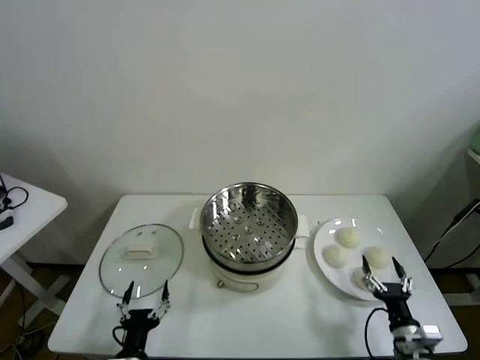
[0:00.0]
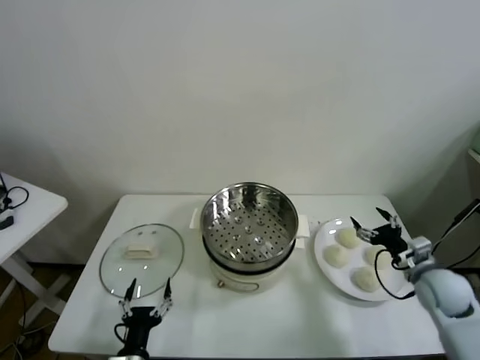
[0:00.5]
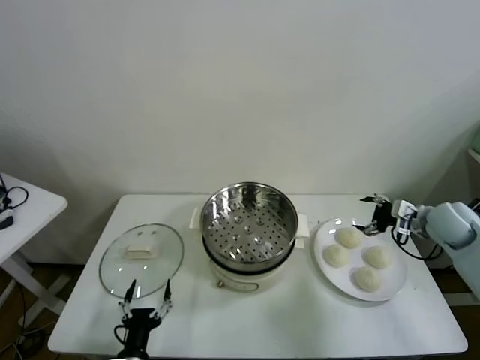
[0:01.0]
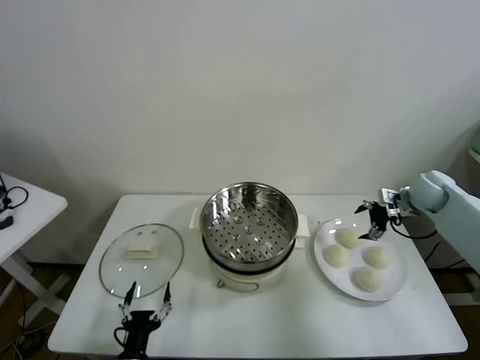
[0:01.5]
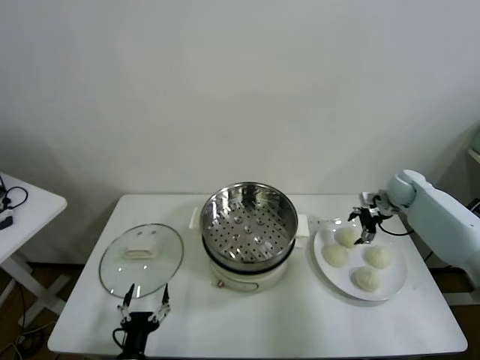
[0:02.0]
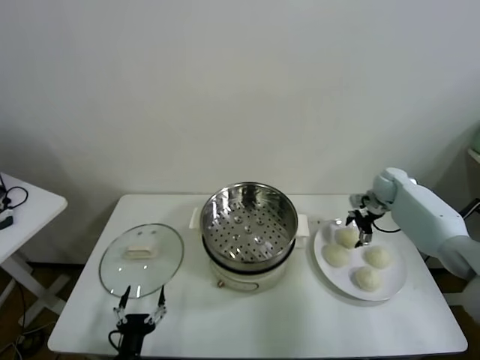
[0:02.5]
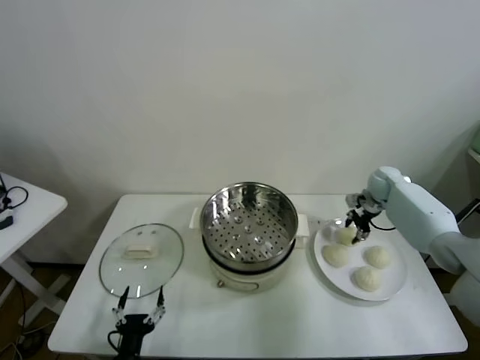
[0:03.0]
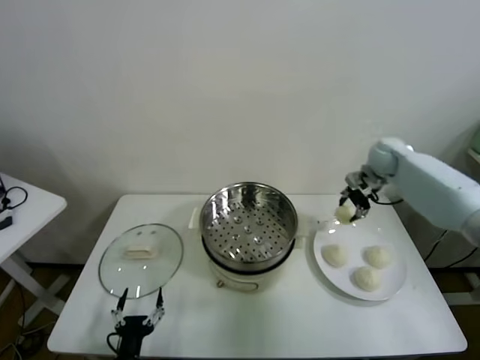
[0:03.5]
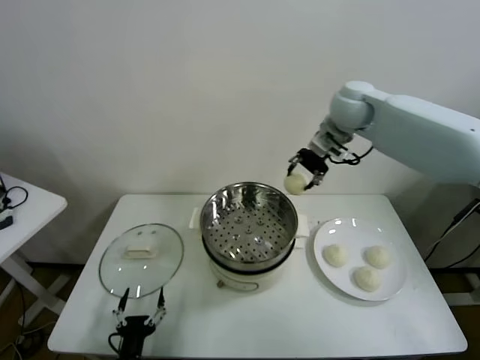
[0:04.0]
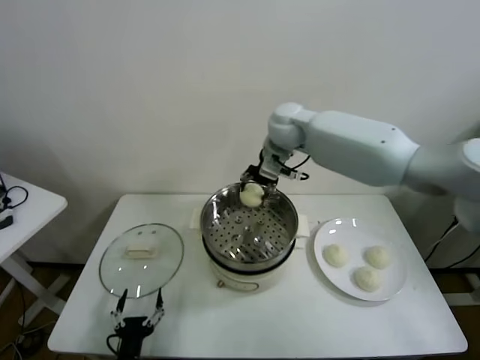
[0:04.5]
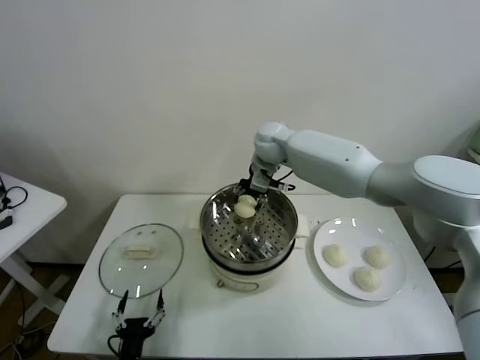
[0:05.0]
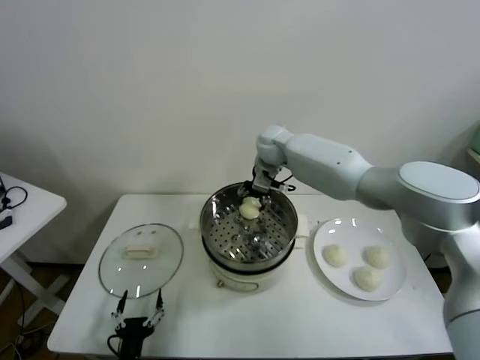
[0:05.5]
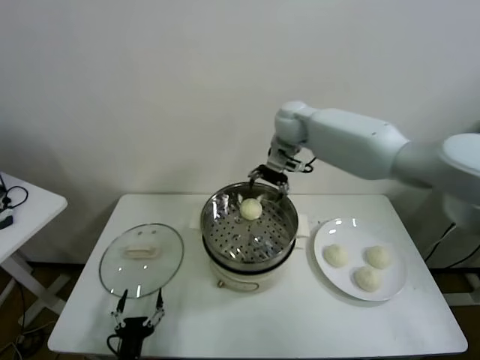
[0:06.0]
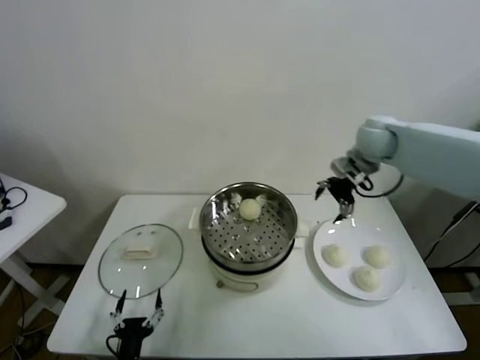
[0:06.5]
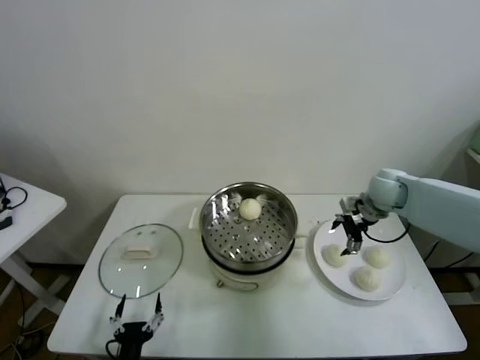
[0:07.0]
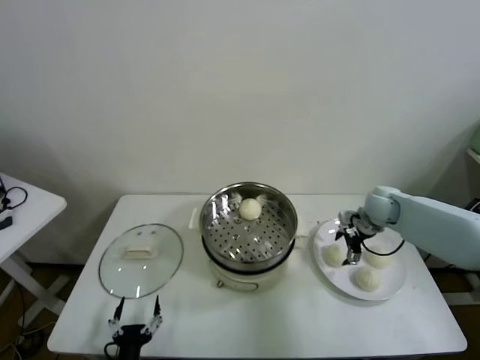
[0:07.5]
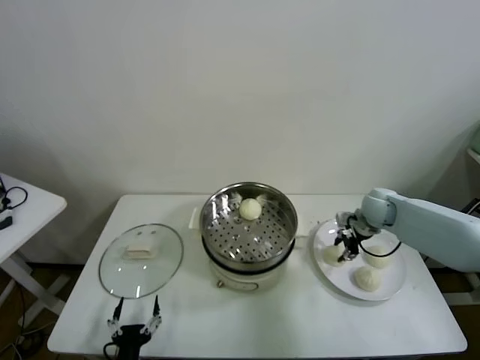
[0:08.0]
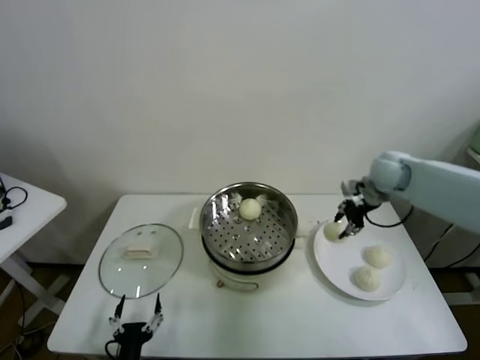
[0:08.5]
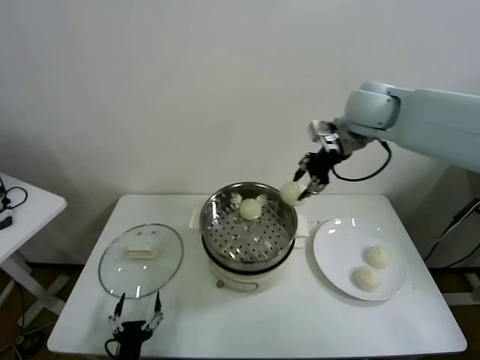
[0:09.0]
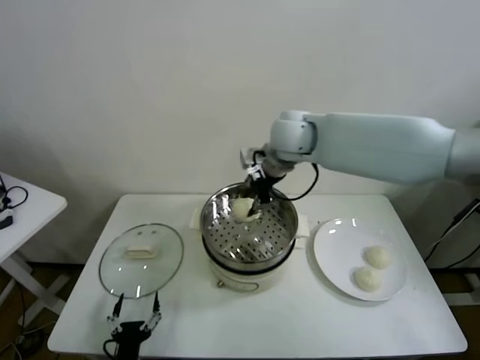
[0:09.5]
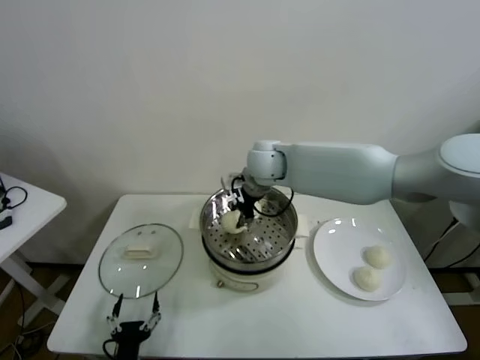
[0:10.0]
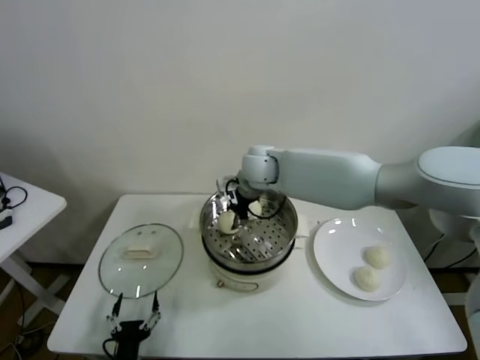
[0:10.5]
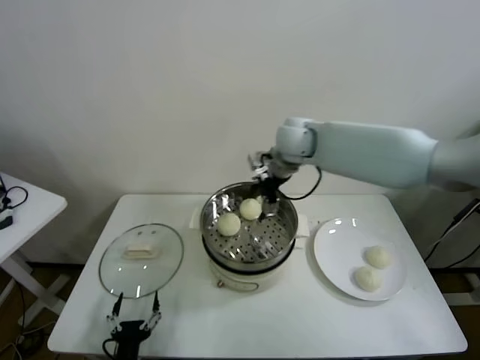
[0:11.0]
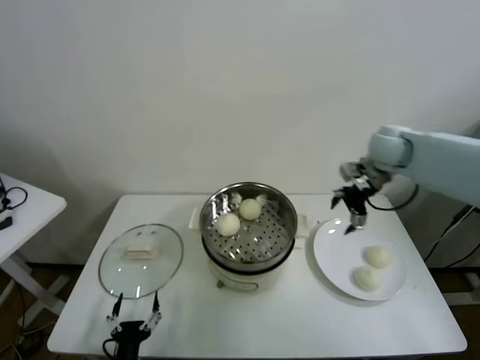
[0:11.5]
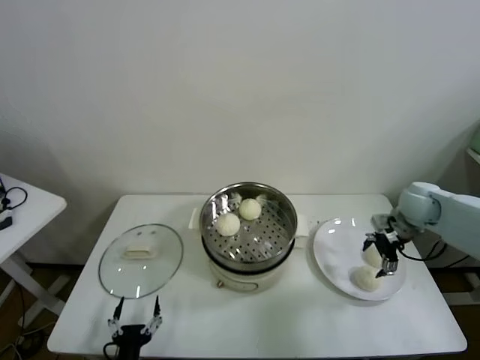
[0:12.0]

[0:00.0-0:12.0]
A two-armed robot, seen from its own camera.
Task of the whole recording: take steamed baozi put them in steamer.
Step, 0.0 to 2.5 s: Grasp the baozi in the plate with right gripper.
Step, 3.0 to 5.5 s: Place the baozi on the steamer with right gripper.
Step, 6.0 to 7.5 s: Grasp the baozi in the plate with right gripper.
Step, 8.0 to 10.5 s: Place the baozi on the steamer with right gripper.
2.0 to 4.0 s: The right gripper is displaced upward and to the left by roughly 35 cm, and closes up.
4.0 to 6.0 s: The right gripper opens its fingers.
6.0 to 8.0 s: The right gripper moves downward, to the right and backward, approximately 30 cm, and closes.
8.0 to 10.0 s: The right gripper goes some 35 cm to the left and upward.
10.0 to 12.0 s: The right gripper shifts about 35 cm to the right, and opens.

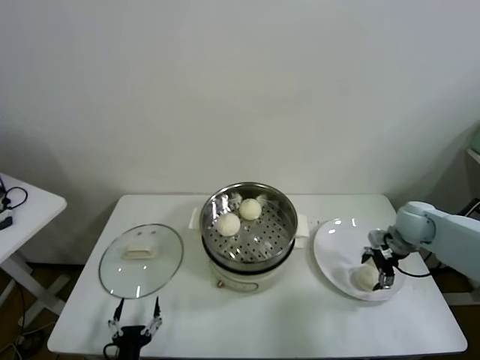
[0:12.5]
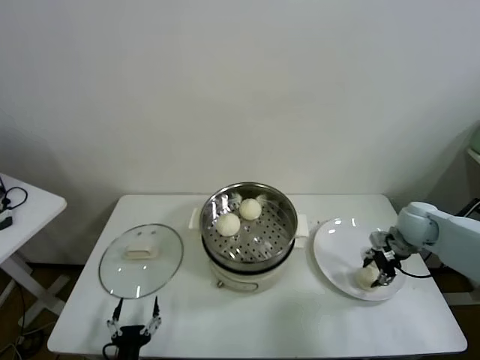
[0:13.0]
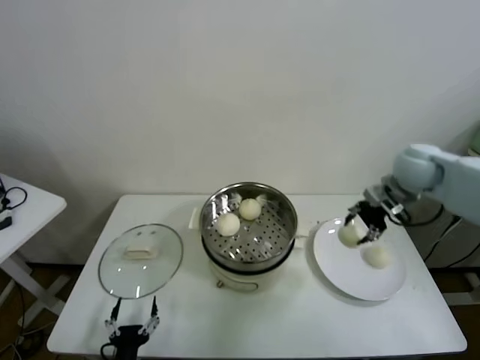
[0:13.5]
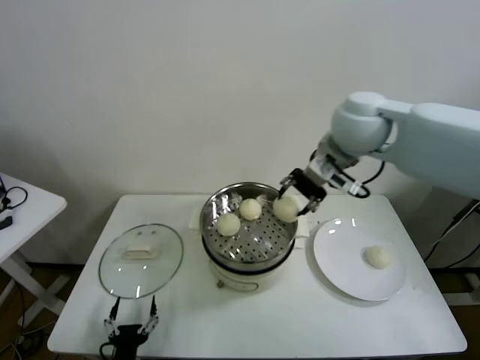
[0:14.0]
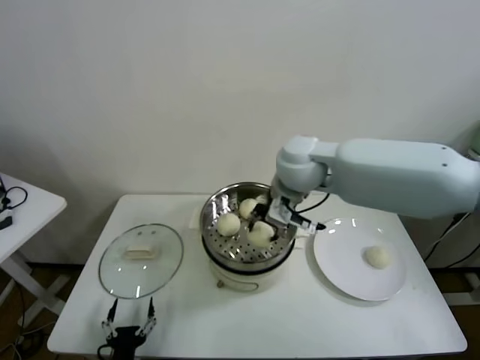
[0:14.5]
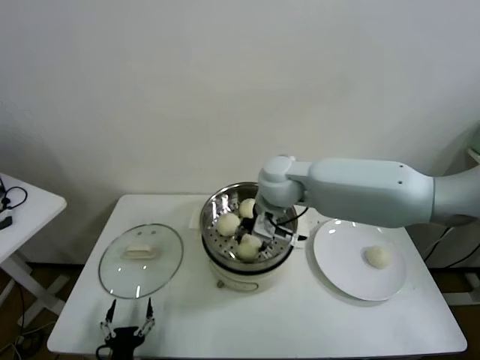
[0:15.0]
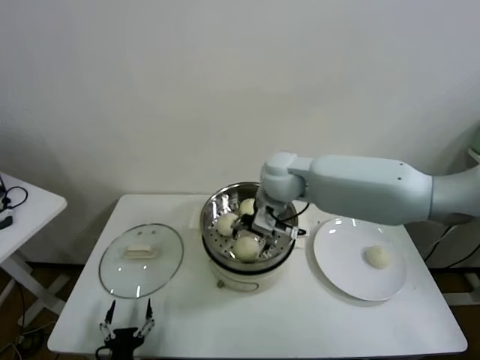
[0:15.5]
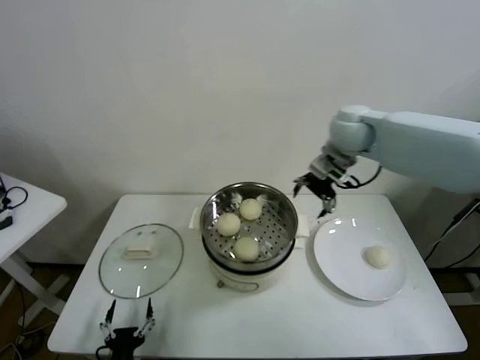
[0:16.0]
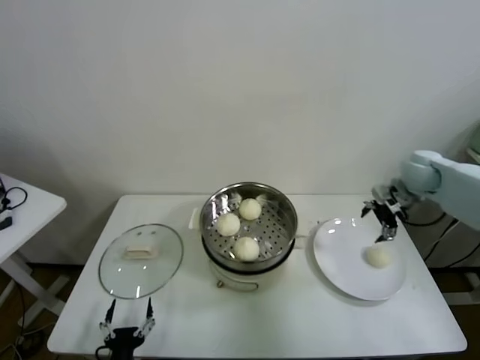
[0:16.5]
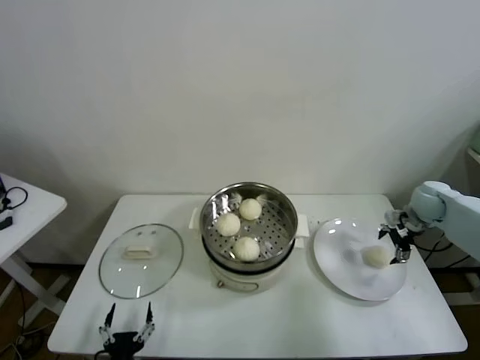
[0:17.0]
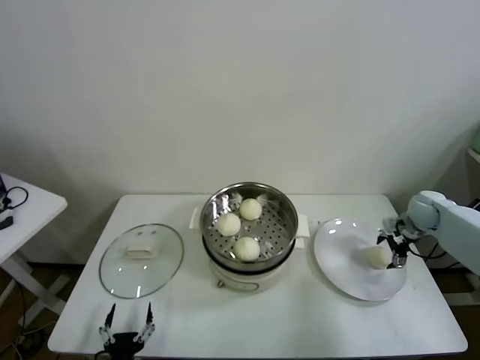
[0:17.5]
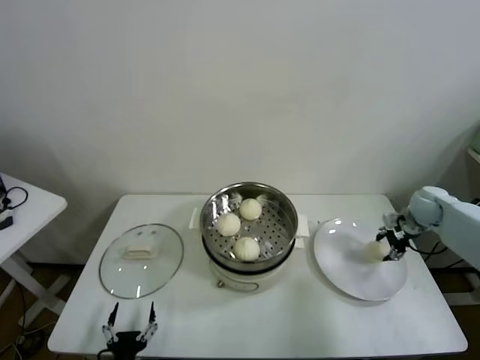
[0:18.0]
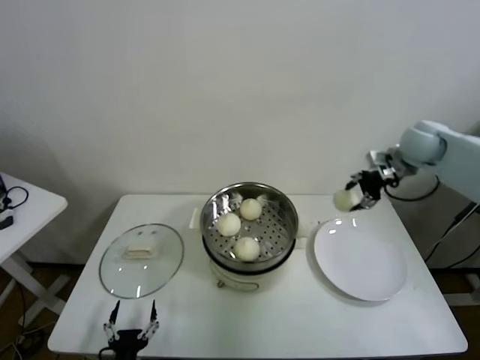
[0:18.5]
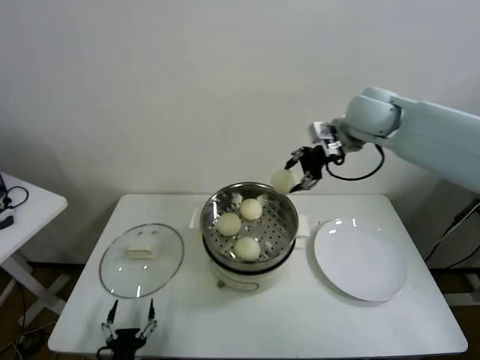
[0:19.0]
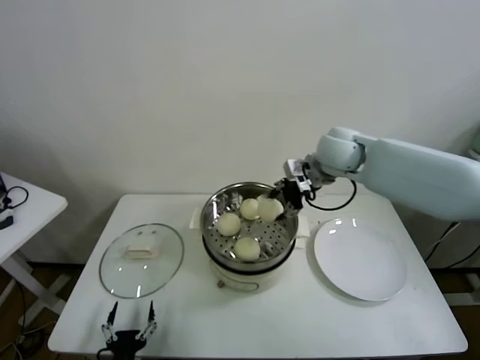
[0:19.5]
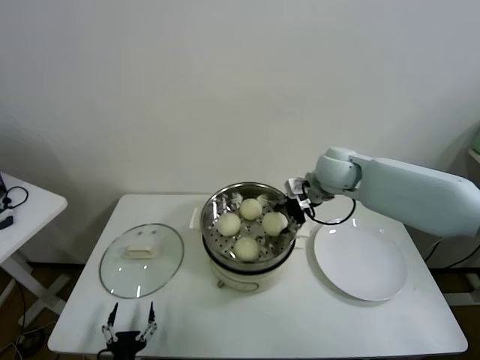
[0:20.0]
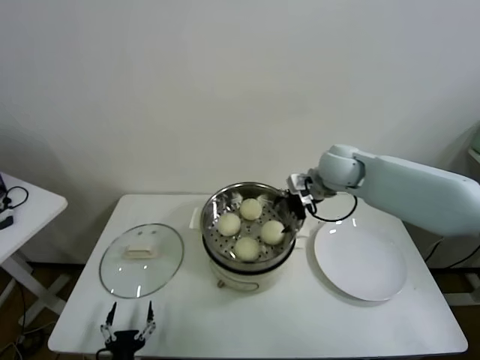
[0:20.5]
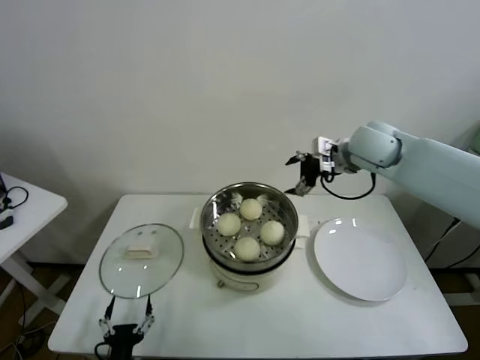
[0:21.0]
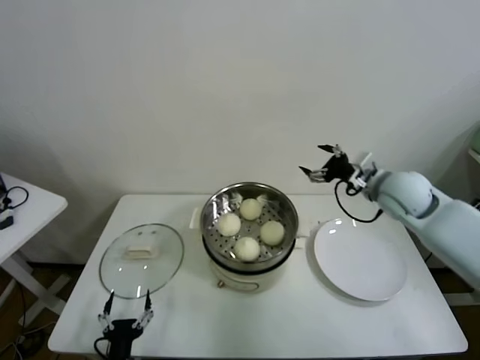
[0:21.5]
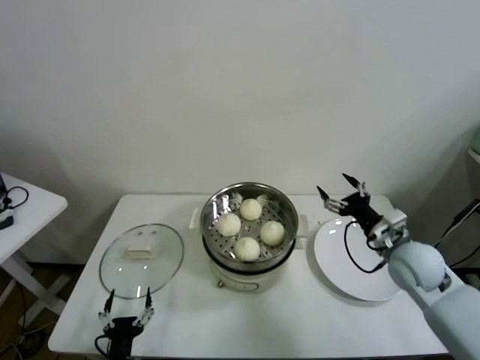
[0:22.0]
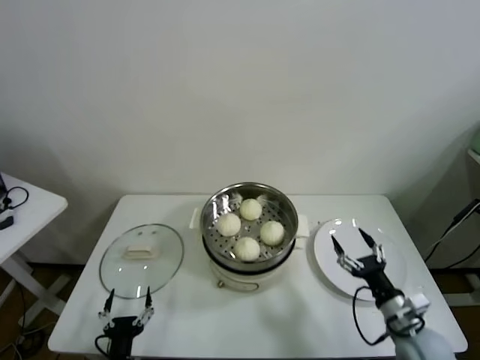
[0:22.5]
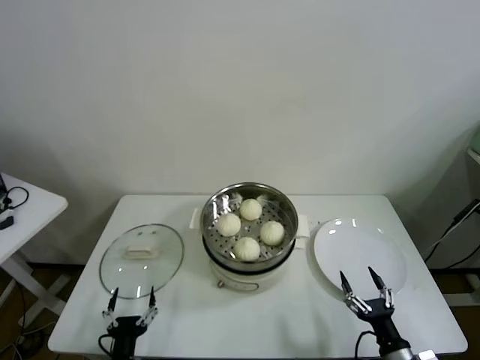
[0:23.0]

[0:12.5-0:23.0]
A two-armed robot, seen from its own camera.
Task of the whole recording: take steamed baozi put them in steamer.
Step, 13.0 to 15.0 s: Place the baozi on the steamer with right gripper.
Step, 15.5 to 17.5 s: Grasp the baozi in the plate with right gripper.
Step, 18.0 to 20.5 s: Place the baozi on the steamer with right gripper.
12.5 to 14.5 s: The right gripper moves to the left and upward, about 35 cm, and closes.
14.5 to 16.5 s: The right gripper heads to the right, covering roughly 30 cm, and opens.
16.5 to 19.0 s: The right gripper is displaced to the left and upward by roughly 20 cm, and closes up.
19.0 to 21.0 s: The right gripper heads downward, covering about 5 cm, and opens.
21.0 to 23.0 s: The right gripper shifts roughly 50 cm backward and downward.

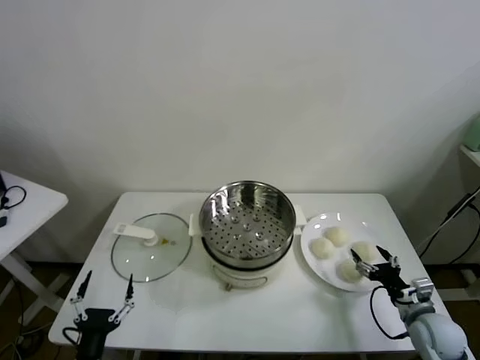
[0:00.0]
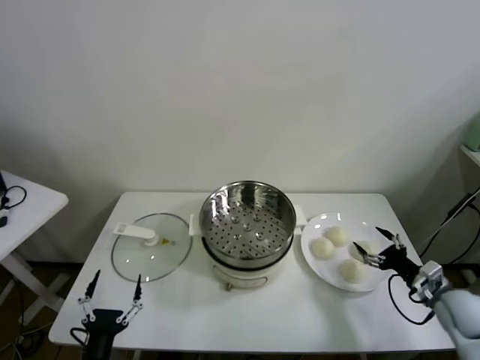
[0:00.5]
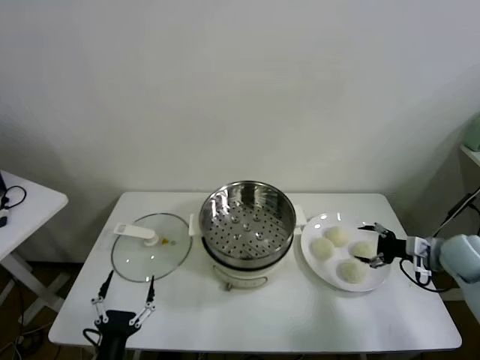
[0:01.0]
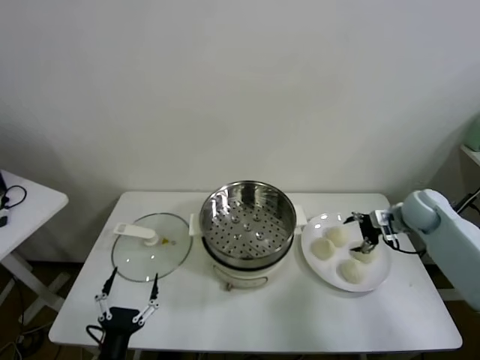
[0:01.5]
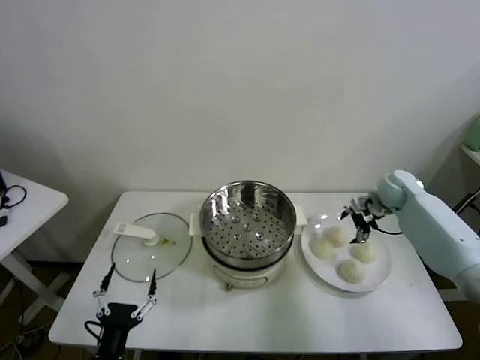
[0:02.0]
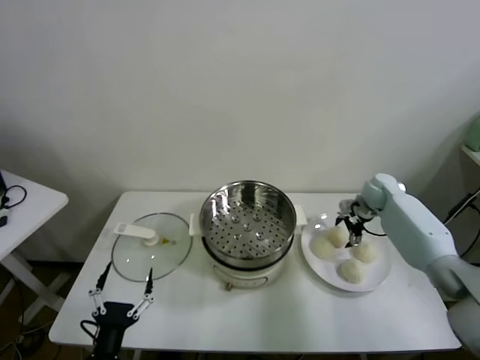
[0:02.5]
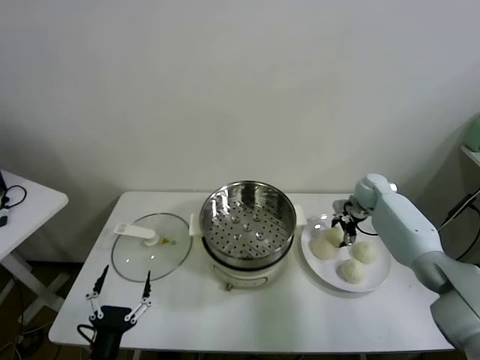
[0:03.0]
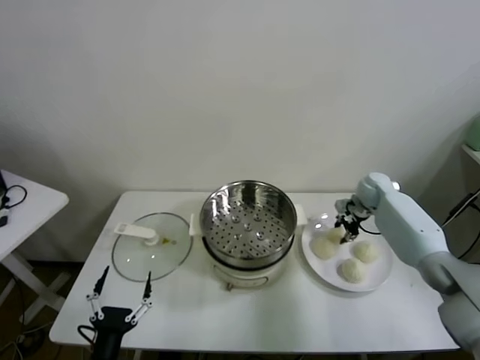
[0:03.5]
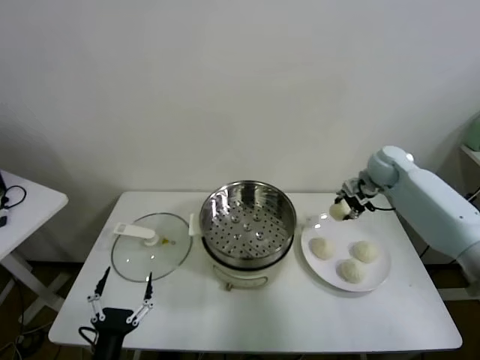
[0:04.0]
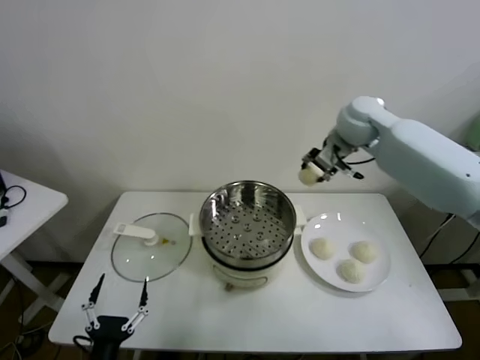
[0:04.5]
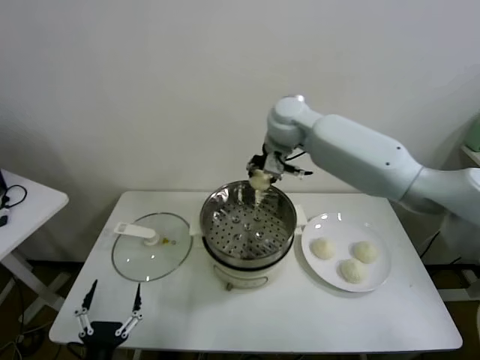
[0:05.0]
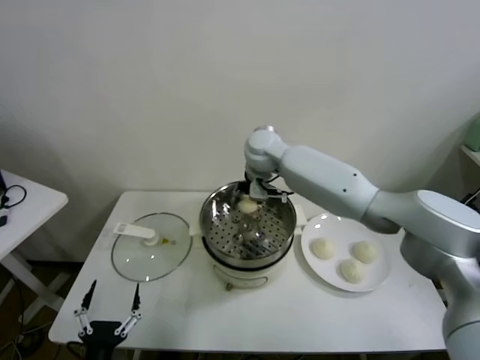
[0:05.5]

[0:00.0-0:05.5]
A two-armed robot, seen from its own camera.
Task of the whole recording: take steamed baozi put them in steamer.
Step, 0.0 to 3.0 s: Grasp the baozi in the plate with right gripper.
2.0 to 3.5 s: The right gripper closes up.
3.5 to 5.5 s: The right gripper goes roughly 35 cm to the left and upward.
